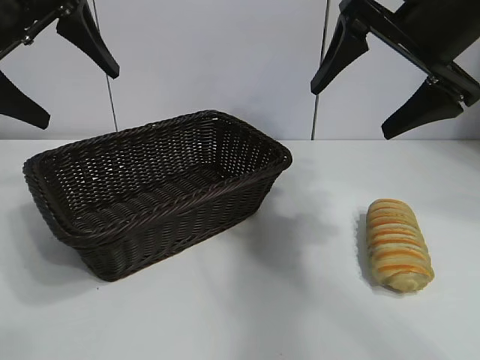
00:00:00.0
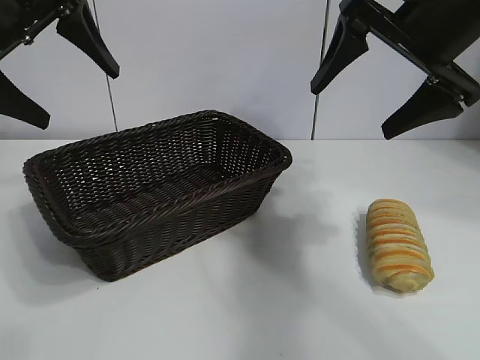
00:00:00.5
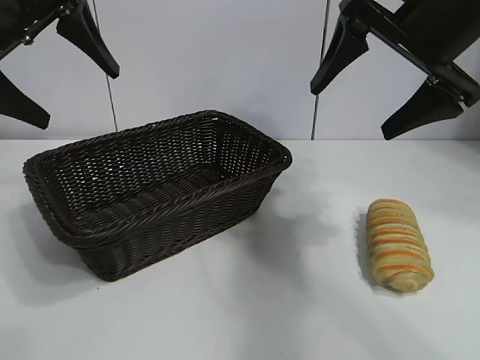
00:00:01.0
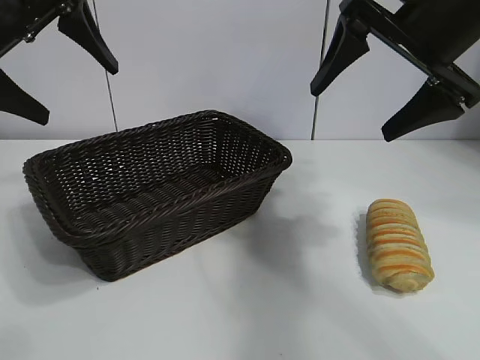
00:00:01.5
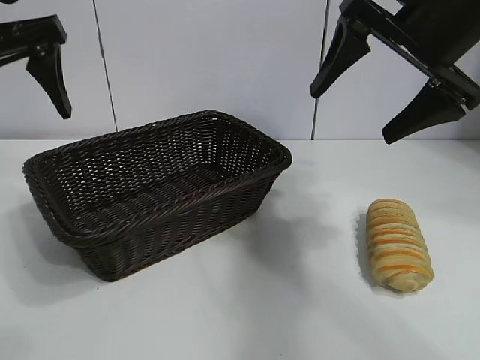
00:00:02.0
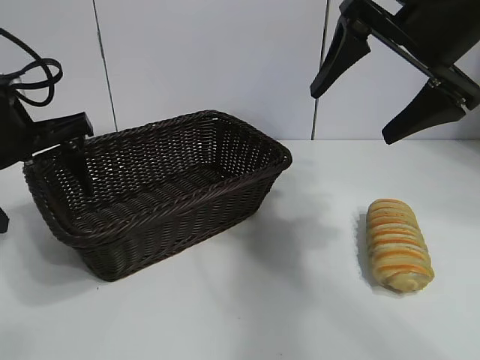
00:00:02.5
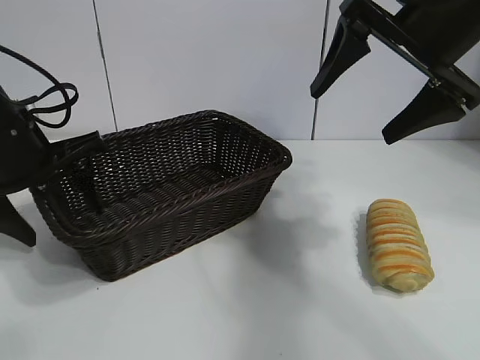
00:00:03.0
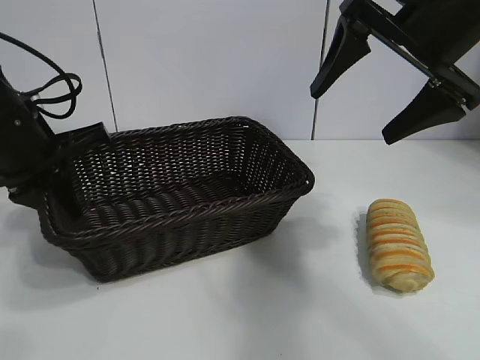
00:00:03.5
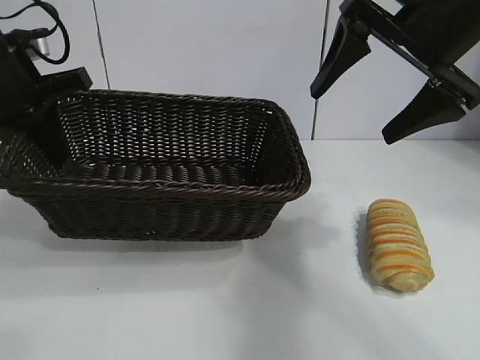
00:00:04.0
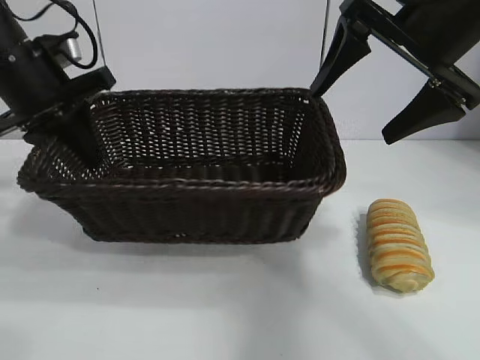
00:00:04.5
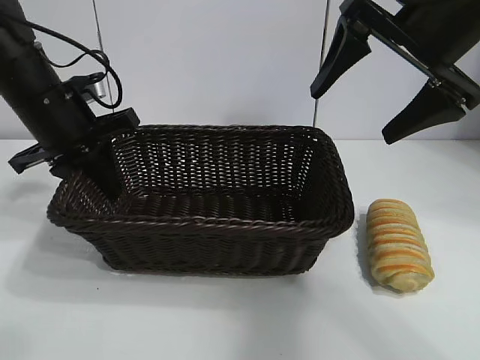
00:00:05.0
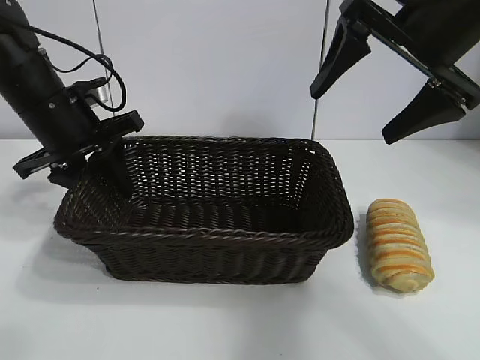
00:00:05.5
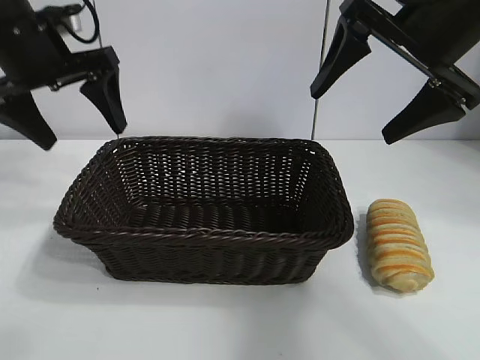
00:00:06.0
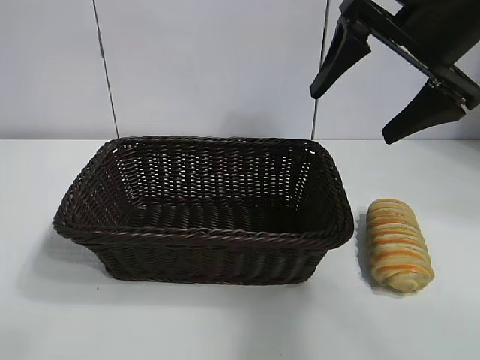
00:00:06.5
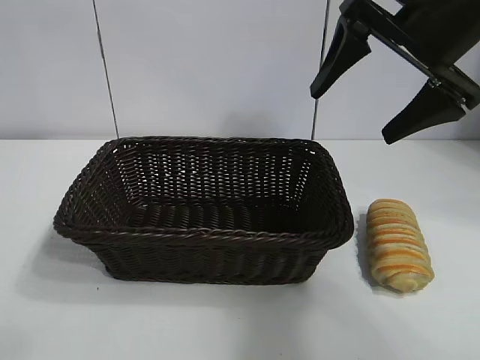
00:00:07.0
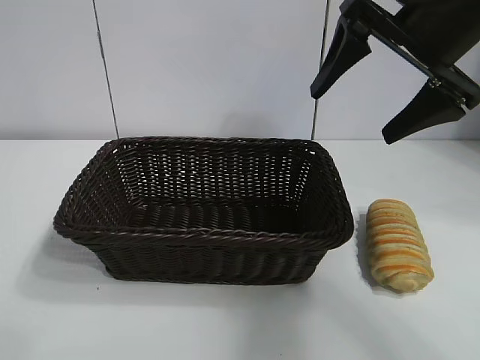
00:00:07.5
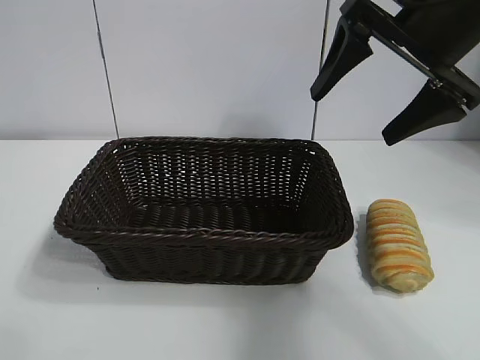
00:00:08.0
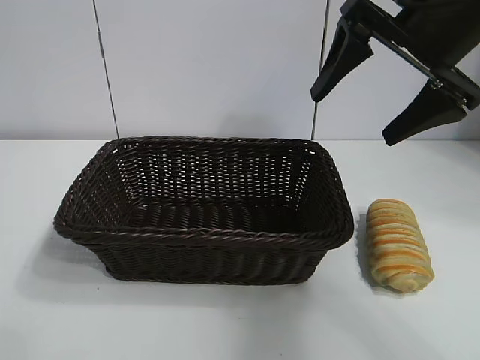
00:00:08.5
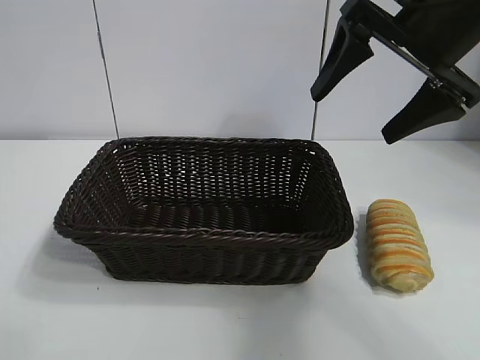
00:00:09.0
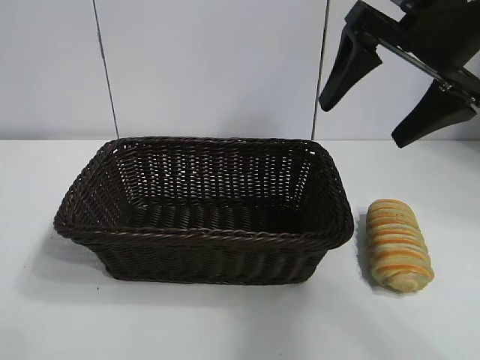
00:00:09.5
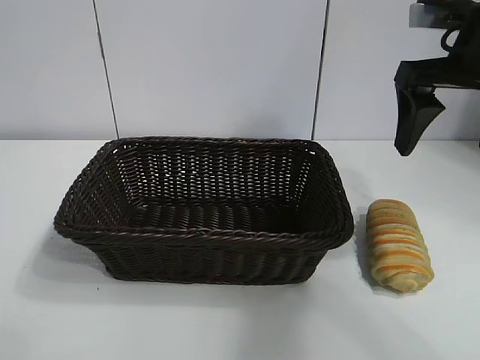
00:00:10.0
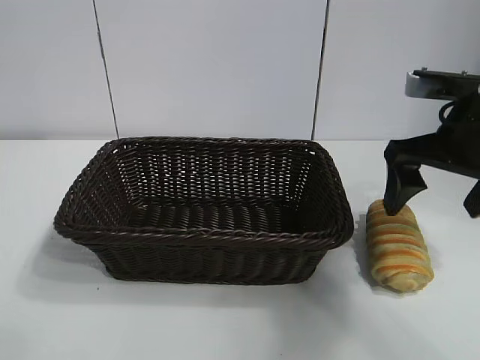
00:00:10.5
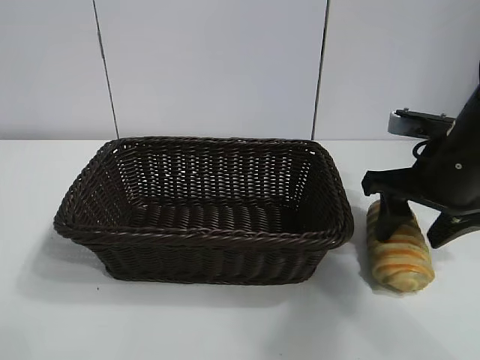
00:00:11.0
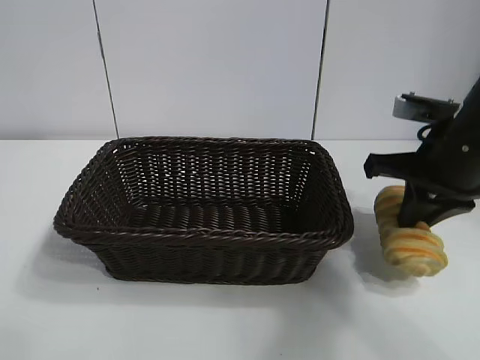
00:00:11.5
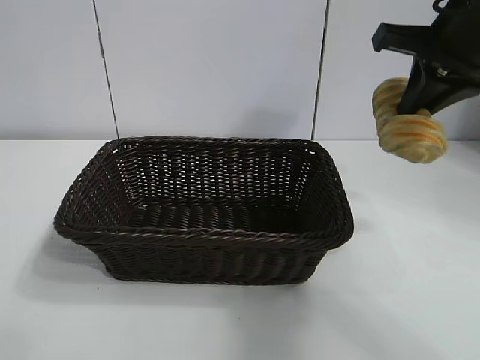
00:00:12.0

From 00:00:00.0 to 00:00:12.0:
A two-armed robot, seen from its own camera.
Task of the whole recording: pick up the long bread and put it into the basket.
Step, from 00:00:01.5 to 00:00:03.0: Grasp the basket with the left gripper.
Step, from 00:00:03.5 to 00:00:05.5: Place the basket in the center of the table with the left gripper.
Step, from 00:00:06.0 to 00:00:11.0: Grasp the long bread with right gripper.

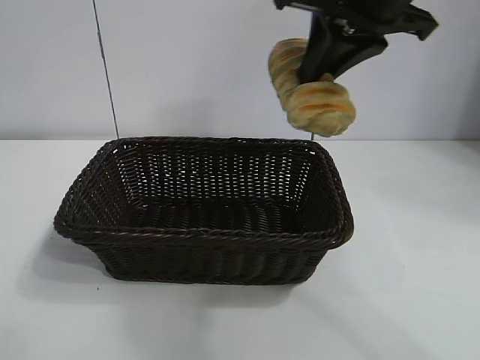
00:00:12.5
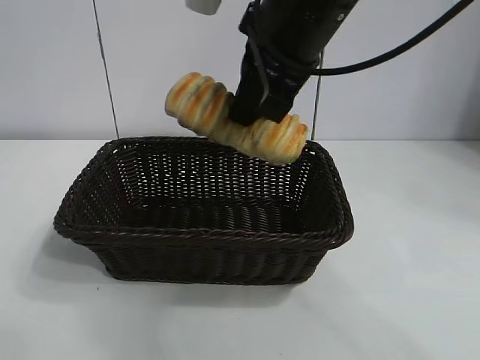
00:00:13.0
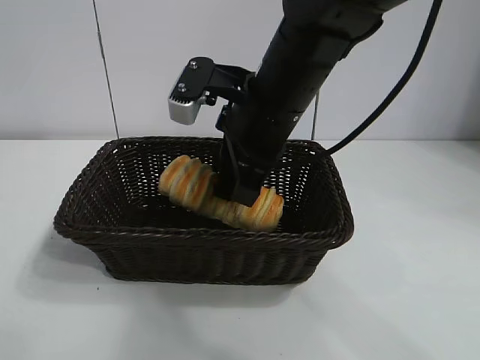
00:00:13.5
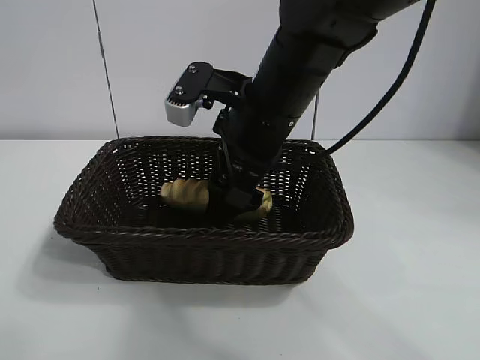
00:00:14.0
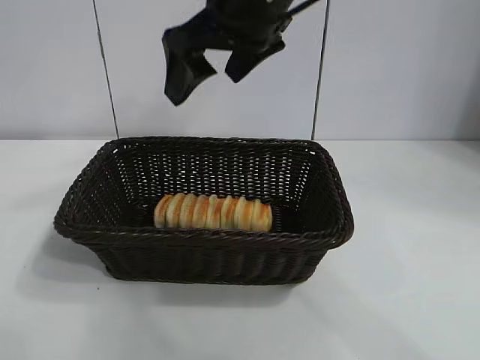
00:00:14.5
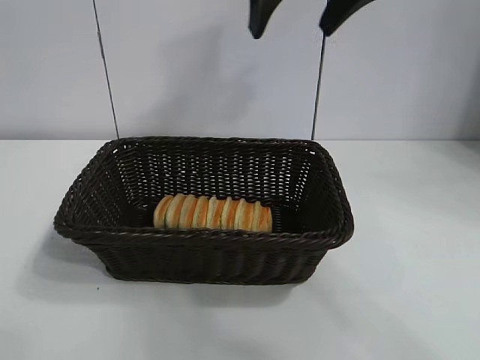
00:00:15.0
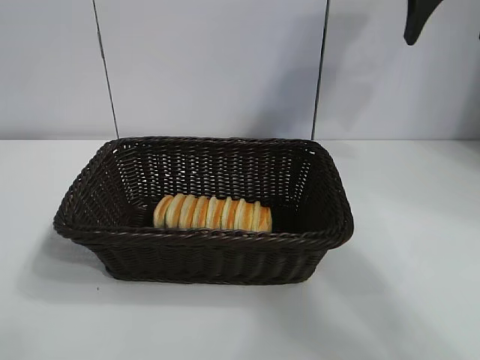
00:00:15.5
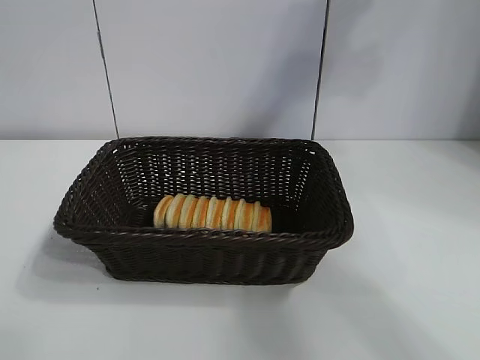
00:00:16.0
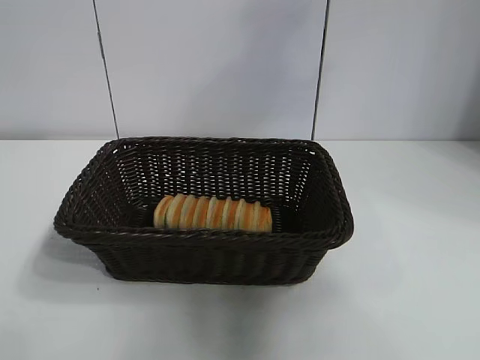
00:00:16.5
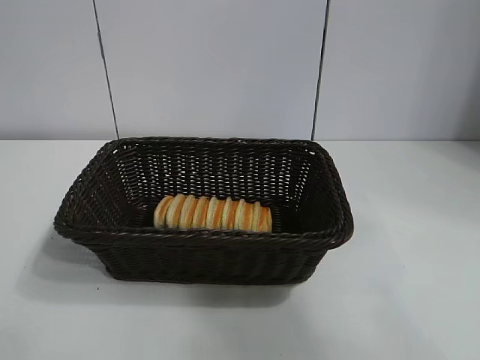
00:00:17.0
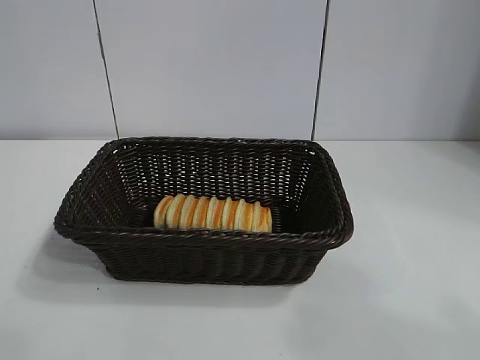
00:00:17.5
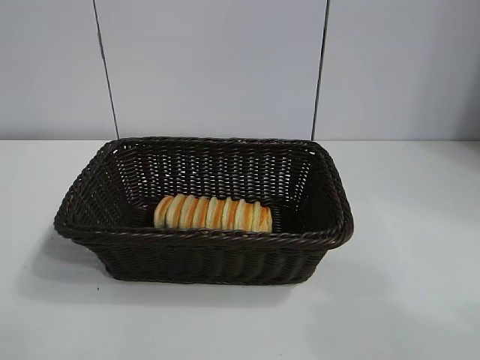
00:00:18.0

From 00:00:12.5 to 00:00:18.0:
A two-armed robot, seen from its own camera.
Task of the whole recording: pick up the long bread and put it into the basket.
Step, from 00:00:12.5 to 00:00:14.0: Place the long bread in the basket with right gripper.
